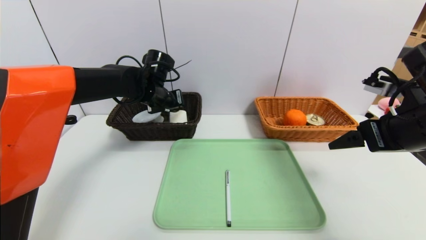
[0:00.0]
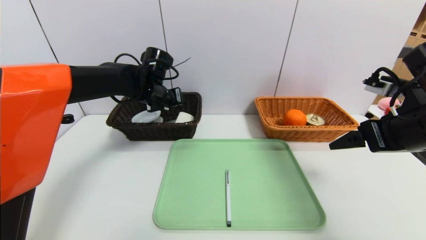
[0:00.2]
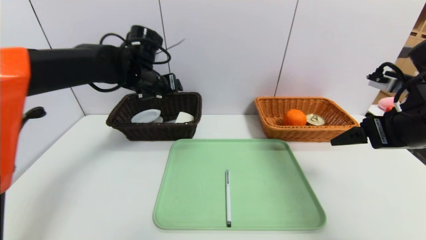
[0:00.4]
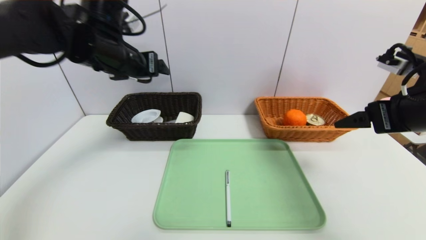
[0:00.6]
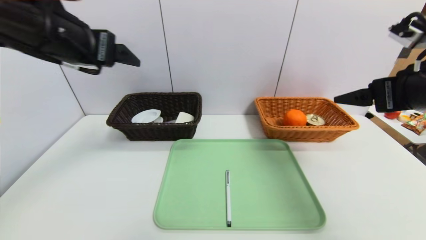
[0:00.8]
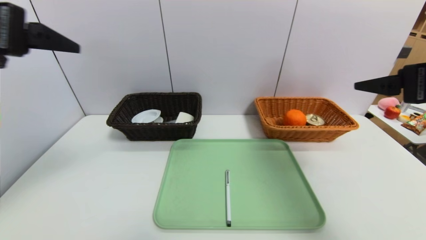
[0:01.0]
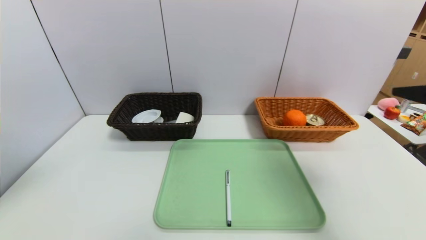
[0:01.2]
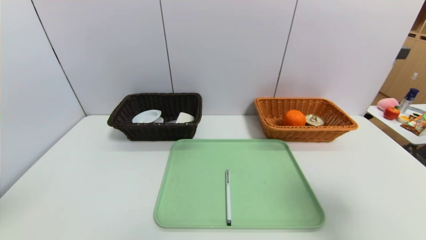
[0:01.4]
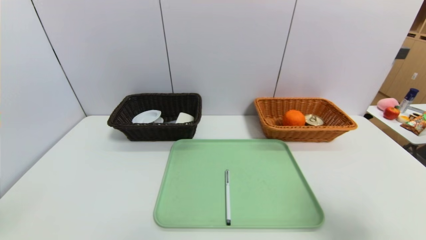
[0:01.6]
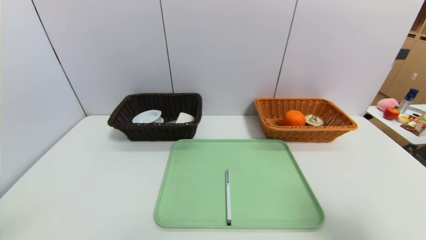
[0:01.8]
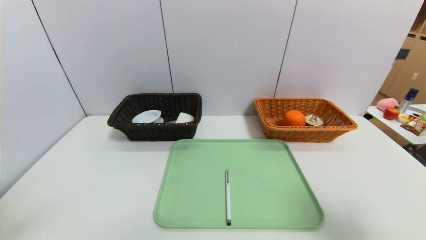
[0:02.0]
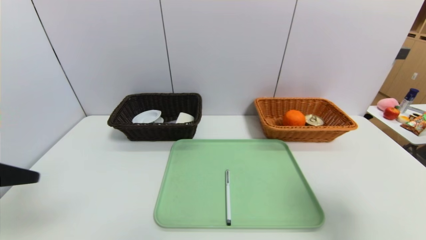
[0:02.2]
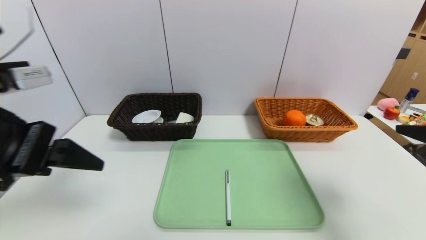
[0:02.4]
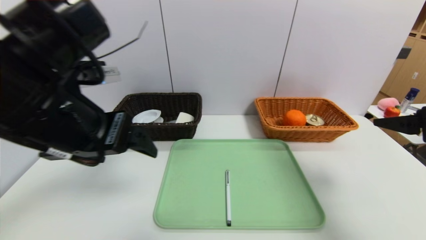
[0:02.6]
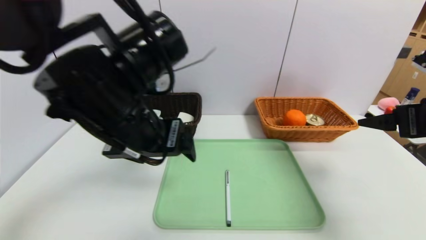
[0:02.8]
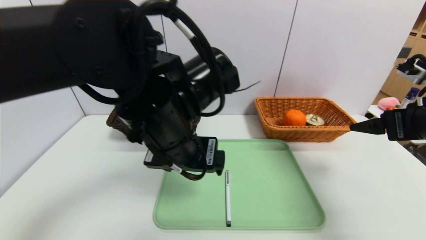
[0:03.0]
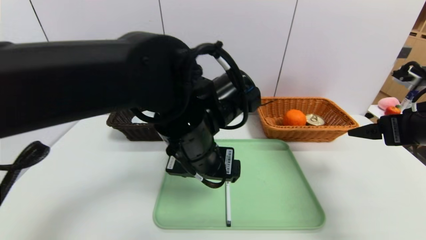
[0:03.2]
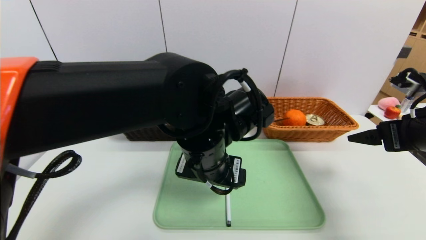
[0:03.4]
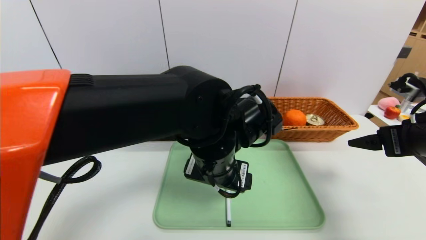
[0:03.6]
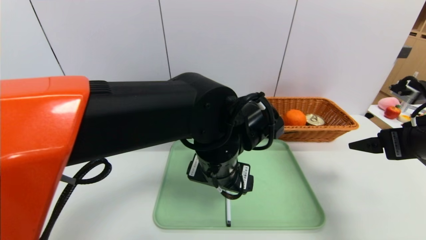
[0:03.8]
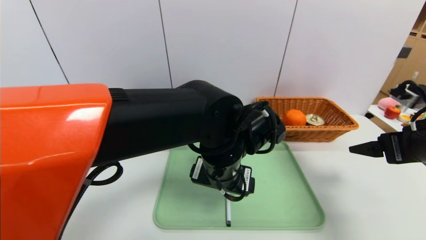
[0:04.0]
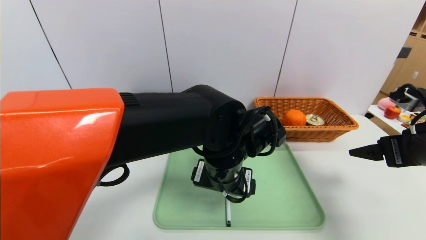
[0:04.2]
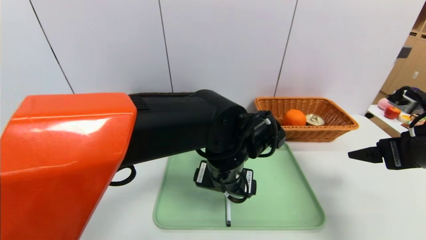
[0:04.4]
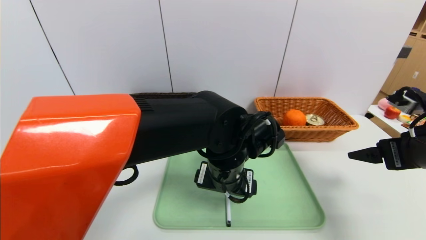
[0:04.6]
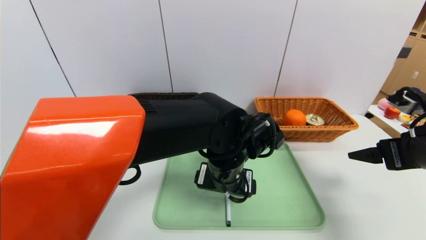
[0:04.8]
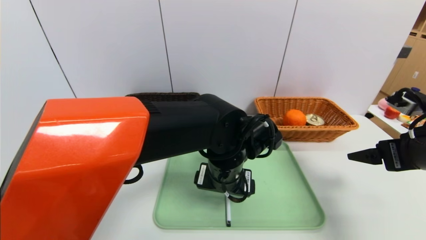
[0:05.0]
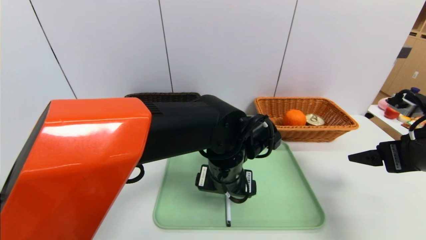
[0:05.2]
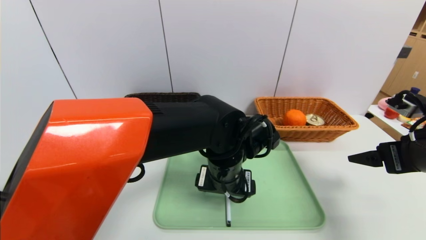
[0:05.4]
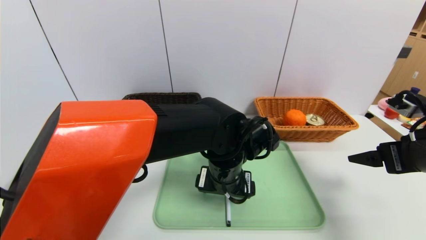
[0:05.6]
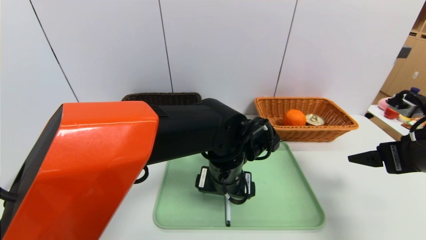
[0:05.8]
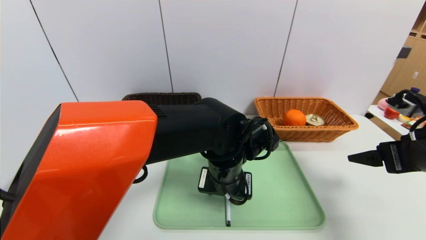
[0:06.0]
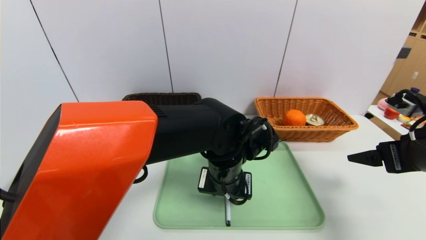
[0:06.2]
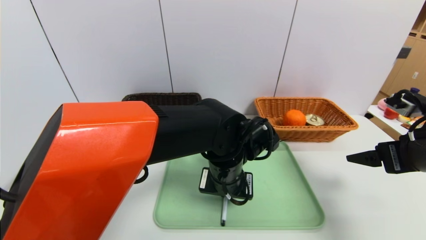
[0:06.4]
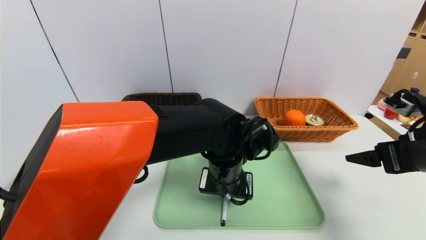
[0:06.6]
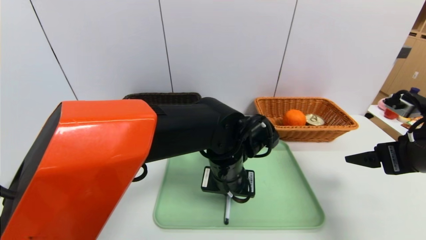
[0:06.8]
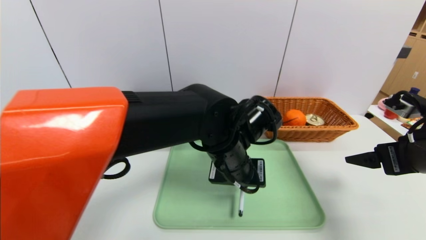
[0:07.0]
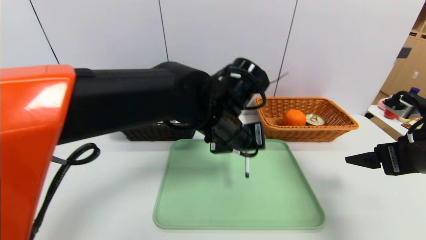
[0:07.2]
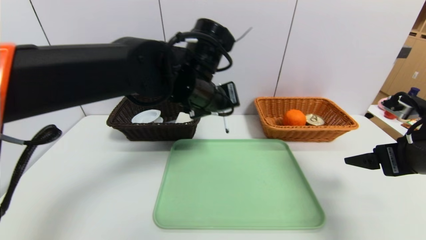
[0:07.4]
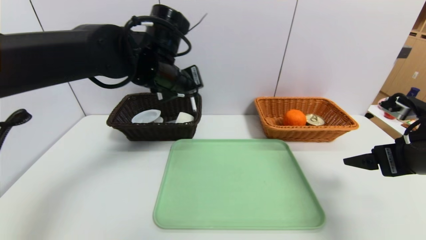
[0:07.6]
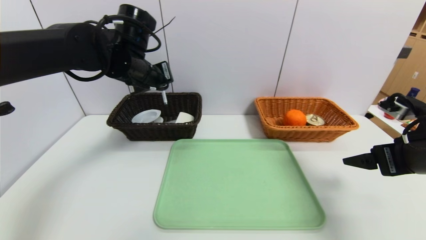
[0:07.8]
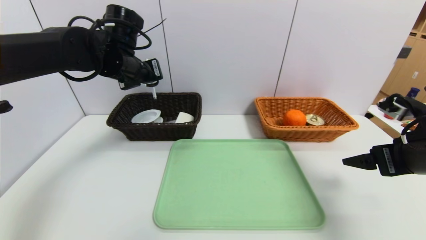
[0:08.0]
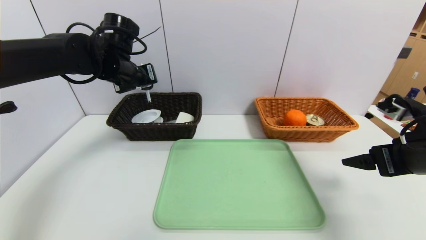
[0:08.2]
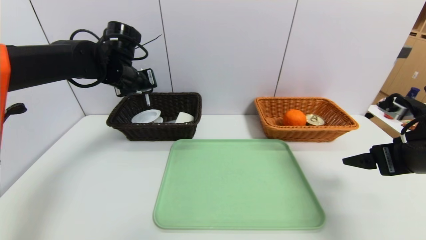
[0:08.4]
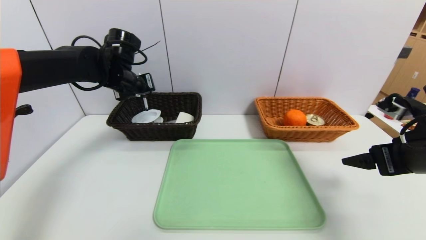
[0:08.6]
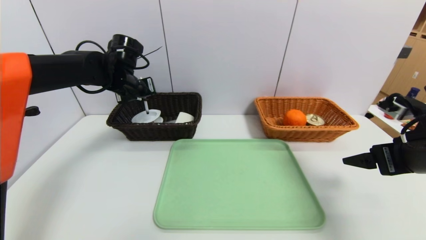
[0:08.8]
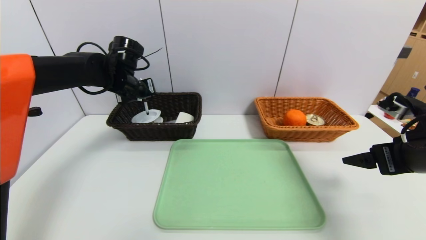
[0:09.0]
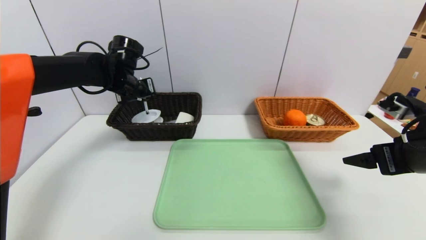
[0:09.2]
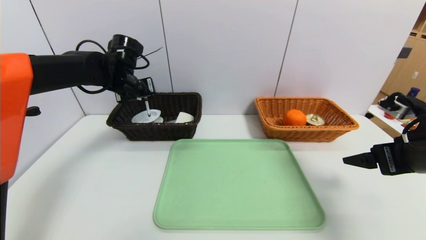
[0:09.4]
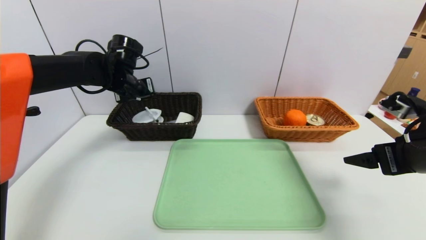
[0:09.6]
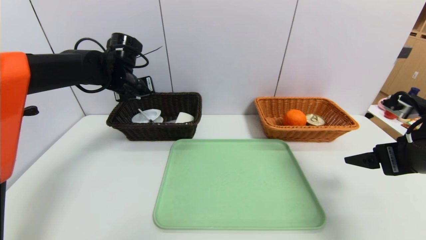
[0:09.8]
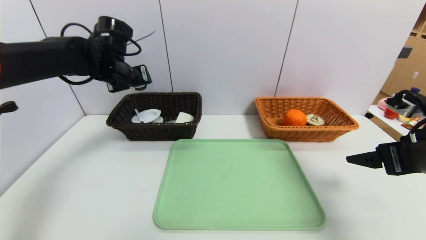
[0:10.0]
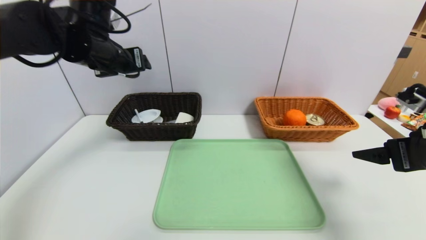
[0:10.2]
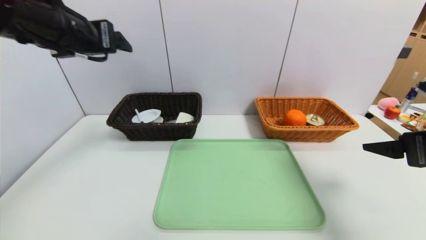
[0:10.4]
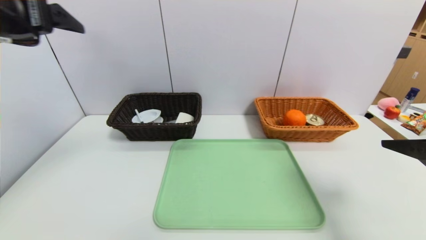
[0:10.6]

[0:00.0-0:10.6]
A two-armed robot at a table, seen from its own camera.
Task of the whole recording: place the food in the right basket with the right gripper, and place the non food items in the left basket with the left gripper.
Step, 0:00.4 to 0:09.8: Grasp the black marker and put it in the left basket.
0:00.0 to 0:01.6: The left gripper moves backward, approximately 40 cm, while the right gripper travels backward by roughly 15 cm.
0:01.6 to 0:03.0: The left gripper shifts roughly 30 cm to the right and forward; the right gripper travels forward by approximately 15 cm.
0:03.0 to 0:04.6: The left gripper moves downward and to the right, roughly 15 cm.
0:04.6 to 0:06.0: The left gripper closes up.
0:06.0 to 0:07.6: The left gripper goes some 20 cm upward, to the left and forward, and closes.
0:07.6 to 0:09.0: The left gripper goes approximately 15 cm to the left, forward and downward.
0:09.0 to 0:10.6: The right gripper travels backward by about 5 cm. The left gripper heads backward and upward, covering some 30 cm, and opens.

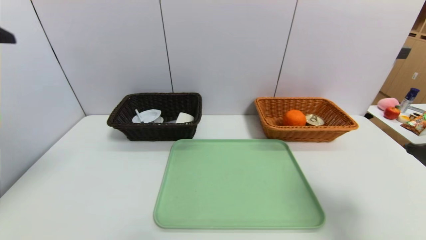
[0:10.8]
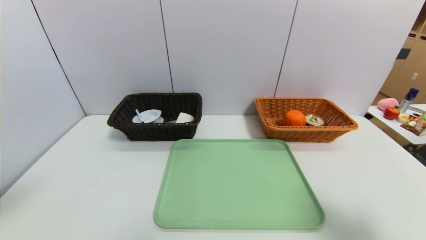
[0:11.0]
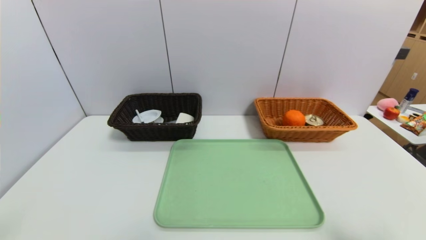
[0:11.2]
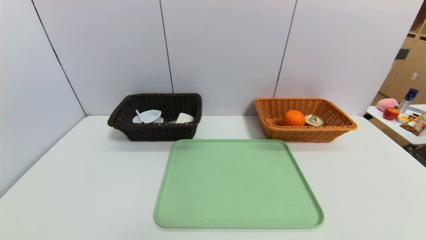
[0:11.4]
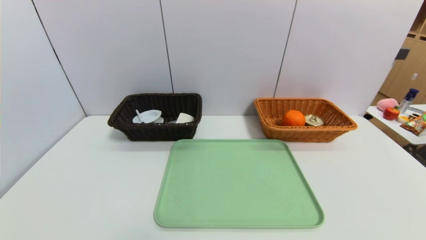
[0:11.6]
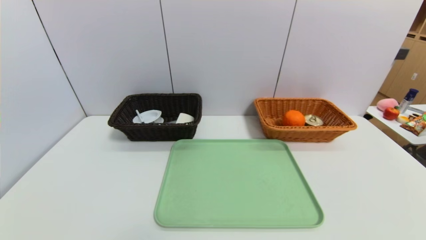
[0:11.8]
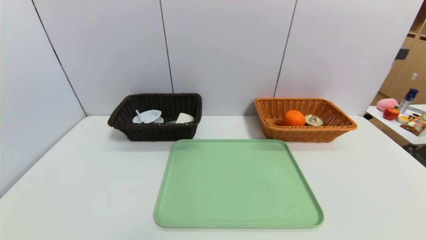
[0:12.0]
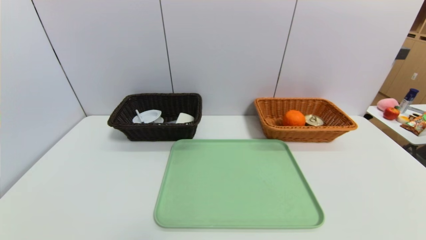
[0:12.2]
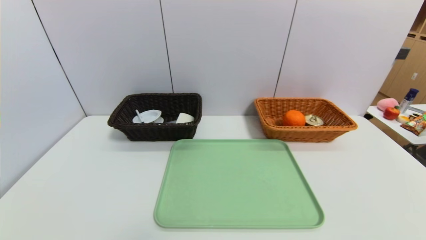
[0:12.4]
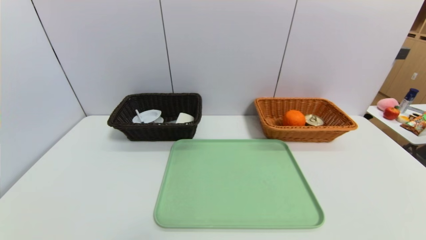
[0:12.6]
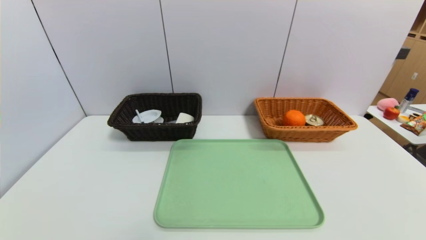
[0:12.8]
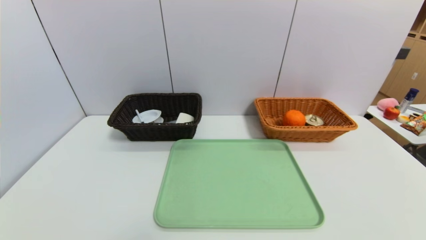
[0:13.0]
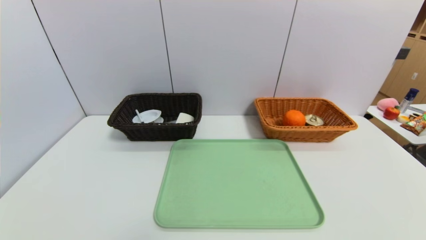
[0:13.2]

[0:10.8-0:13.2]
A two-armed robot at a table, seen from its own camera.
Task of the whole recording: place the food in the right basket with the right gripper, and place the non food items in the left basket with the left gripper.
0:10.8 to 0:12.0: The right gripper is displaced backward and downward by roughly 20 cm. The left gripper travels downward and backward by about 30 cm.
